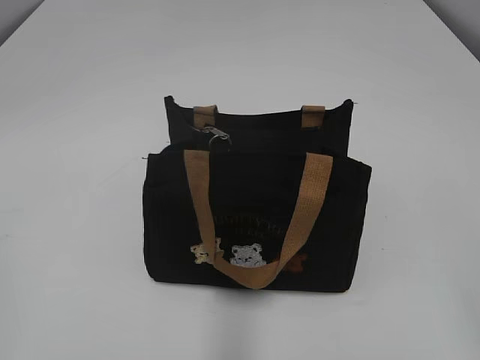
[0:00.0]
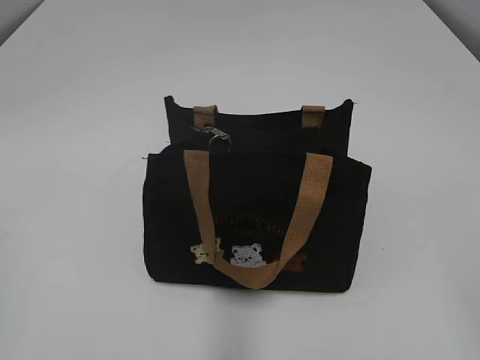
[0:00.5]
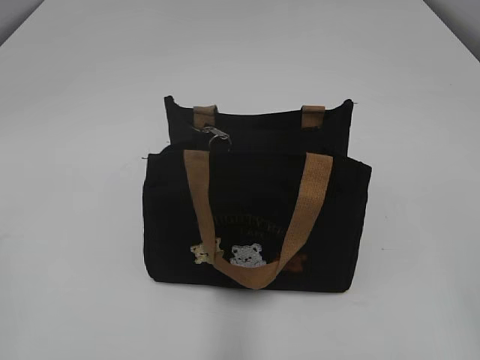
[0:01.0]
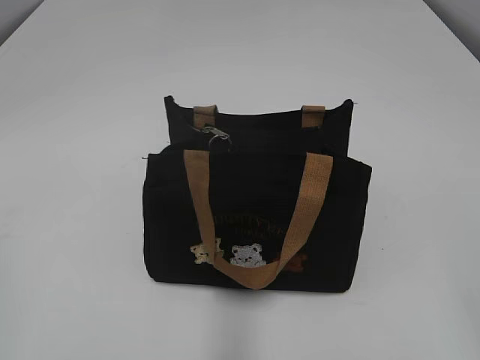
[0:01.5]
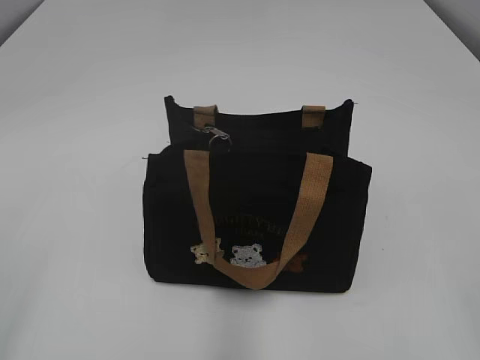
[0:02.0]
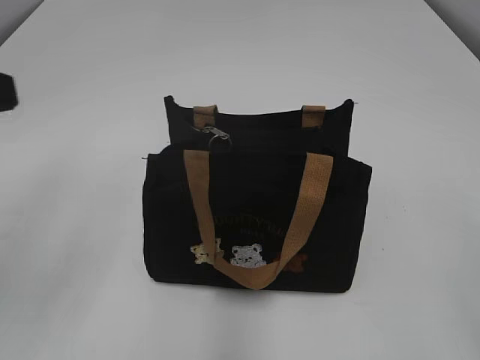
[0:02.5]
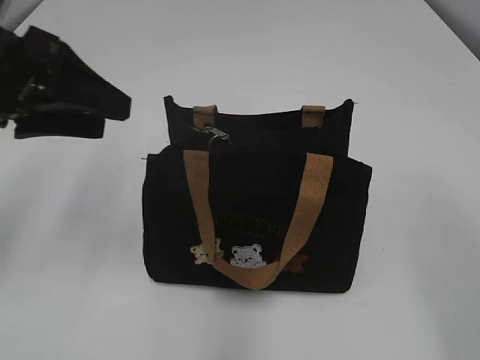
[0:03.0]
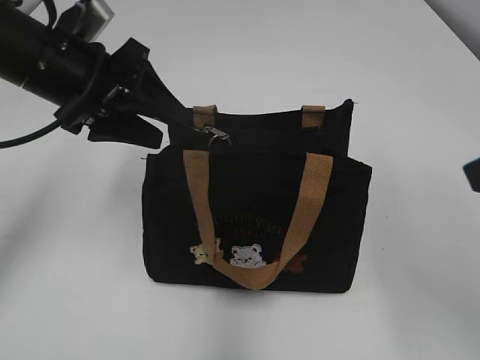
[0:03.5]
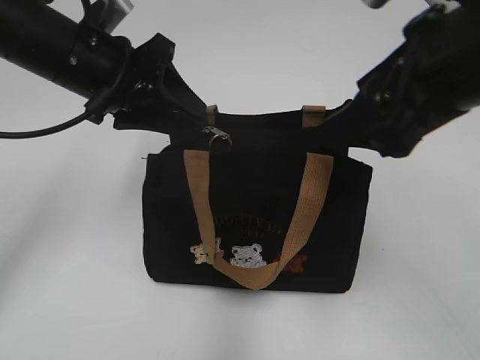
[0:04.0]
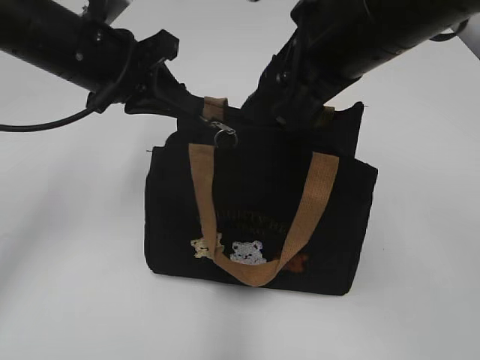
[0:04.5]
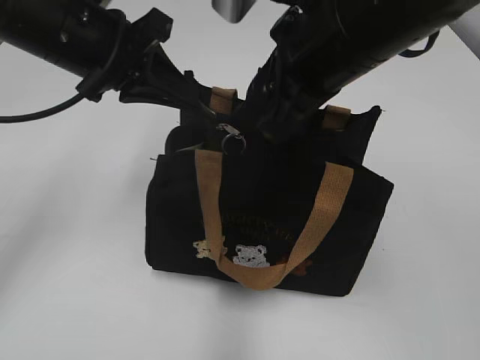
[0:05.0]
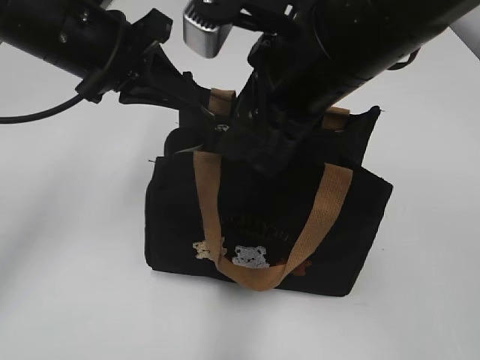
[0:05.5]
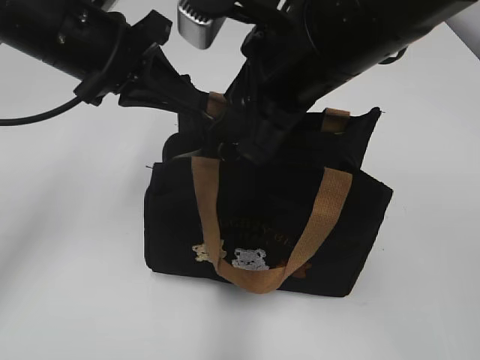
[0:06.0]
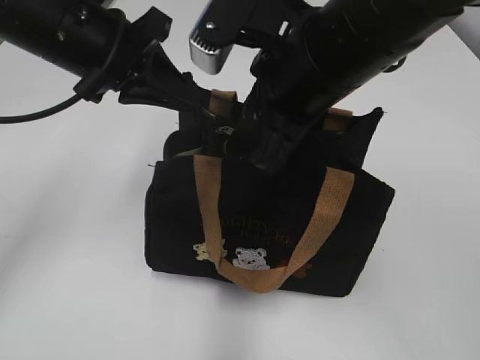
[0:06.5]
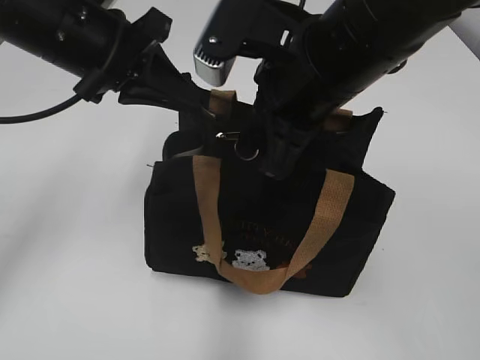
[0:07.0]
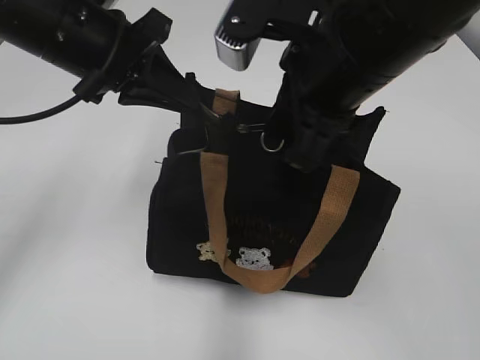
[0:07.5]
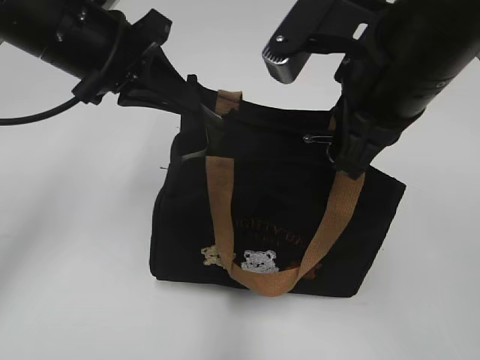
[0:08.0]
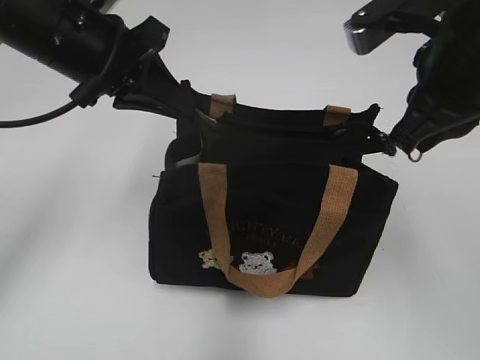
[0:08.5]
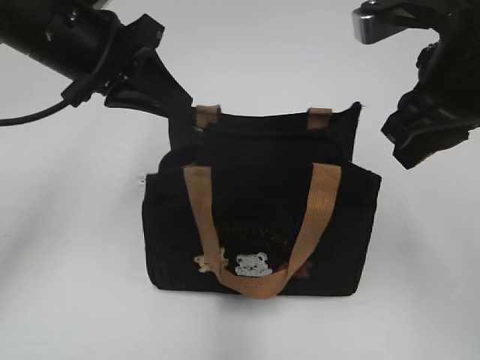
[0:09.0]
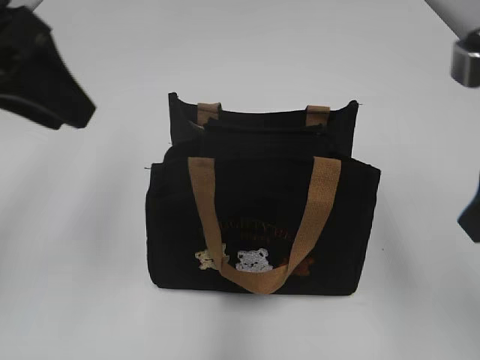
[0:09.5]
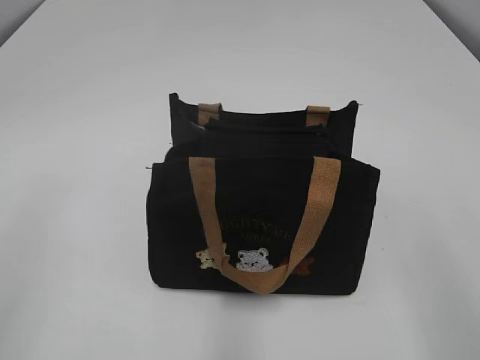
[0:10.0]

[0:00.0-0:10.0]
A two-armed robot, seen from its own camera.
Step, 0:00.0 to 0:08.5: Zip up the bag with your right hand.
0:02.0 to 0:04.0: The left gripper goes some 35 cm forward and to the right; the right gripper is displaced forward and to the left by roughly 25 cm.
0:04.0 to 0:06.0: The left gripper closes; the right gripper goes roughly 10 cm to the left.
0:06.0 to 0:08.0: The right gripper heads to the right, covering about 5 cm, and closes up.
0:08.0 to 0:10.0: The left gripper is displaced backward and to the left by roughly 25 cm, and opens, while the right gripper shifts about 20 cm backward and to the right, and opens up.

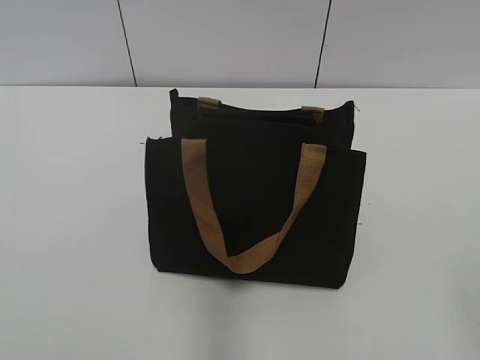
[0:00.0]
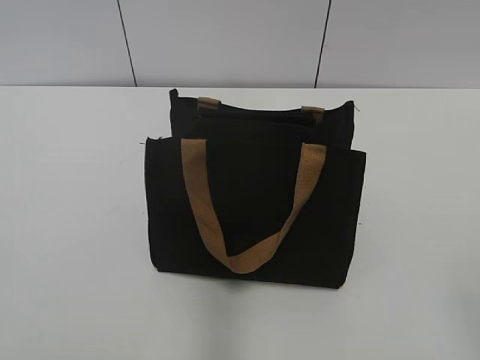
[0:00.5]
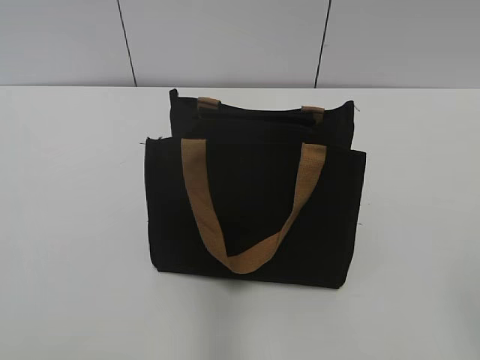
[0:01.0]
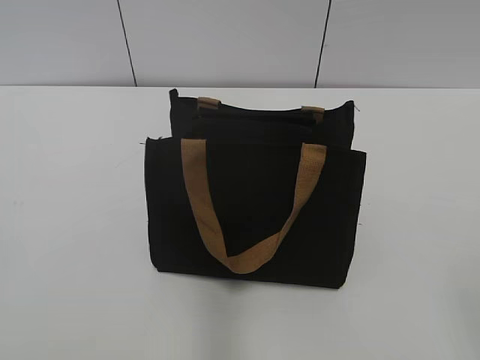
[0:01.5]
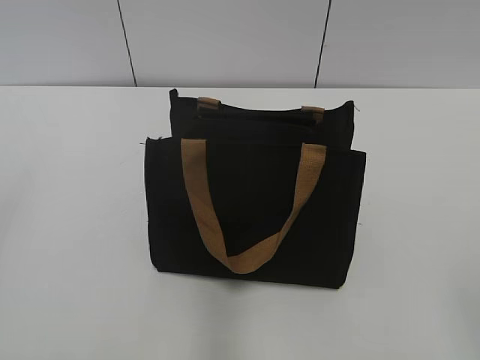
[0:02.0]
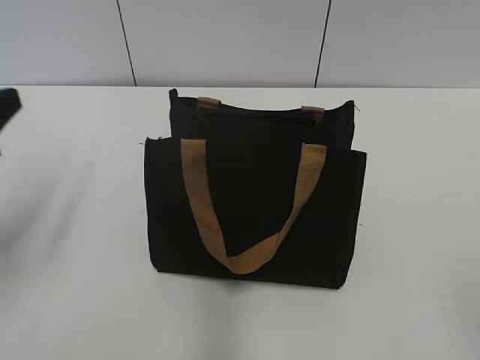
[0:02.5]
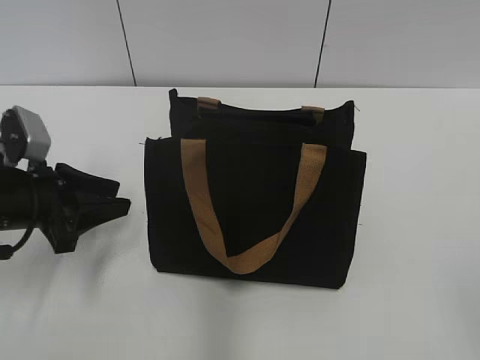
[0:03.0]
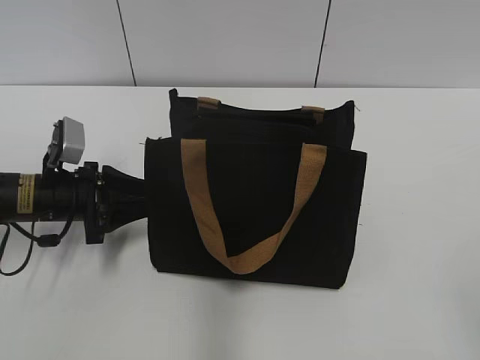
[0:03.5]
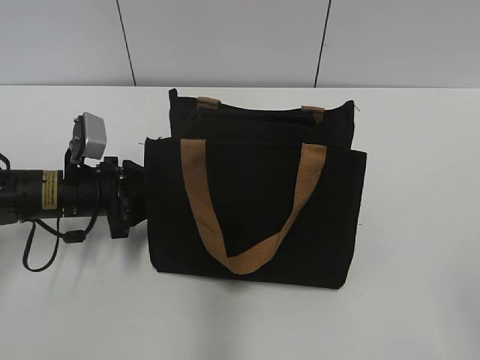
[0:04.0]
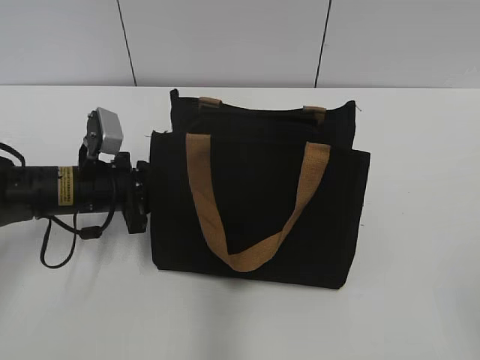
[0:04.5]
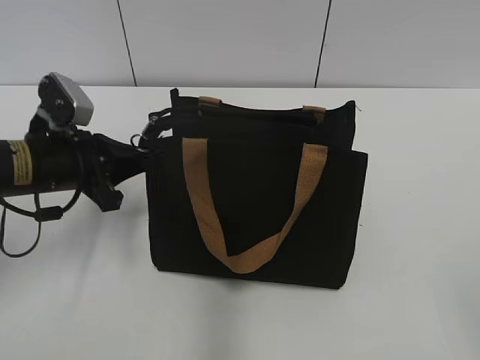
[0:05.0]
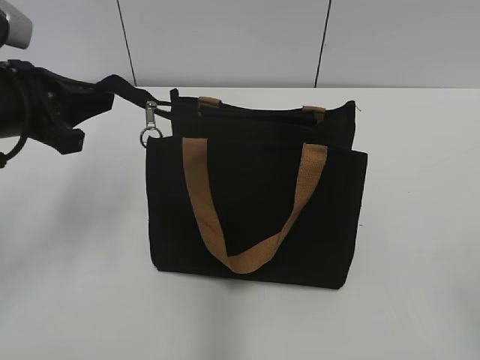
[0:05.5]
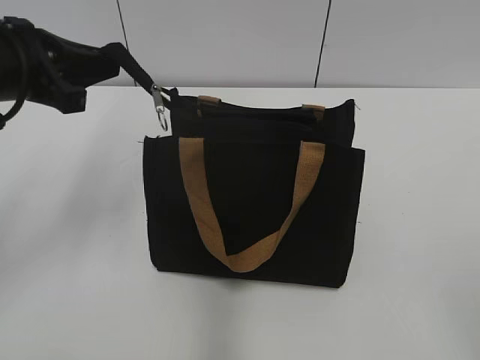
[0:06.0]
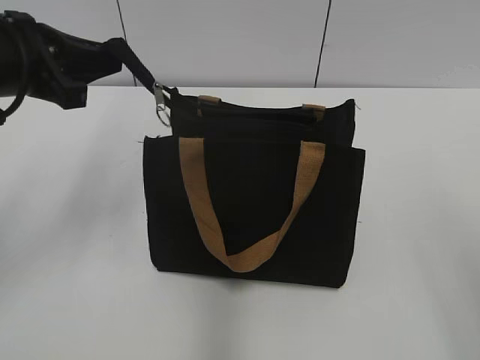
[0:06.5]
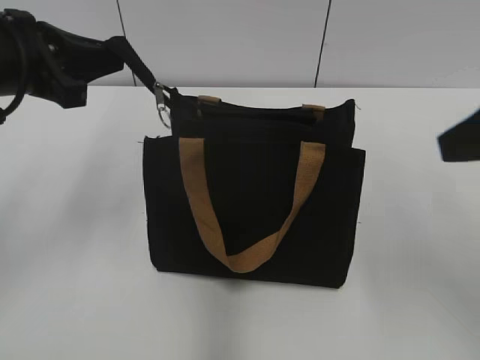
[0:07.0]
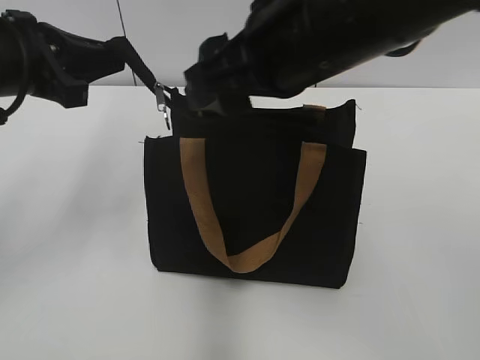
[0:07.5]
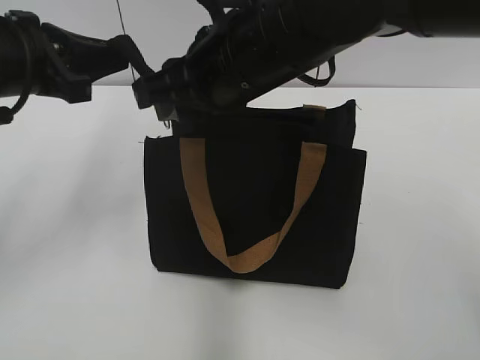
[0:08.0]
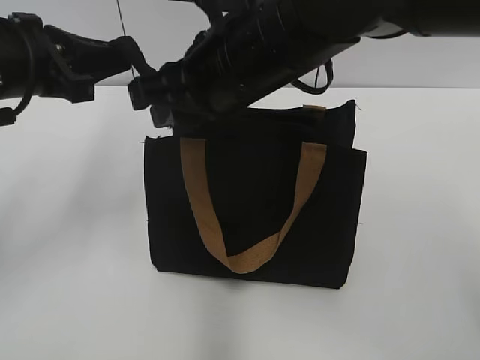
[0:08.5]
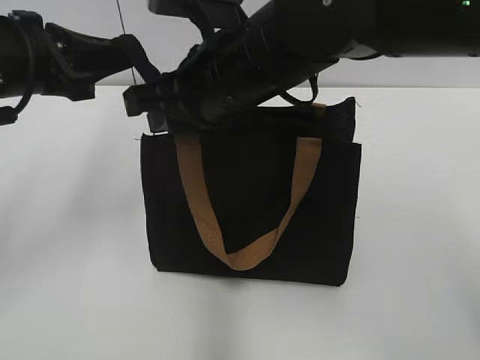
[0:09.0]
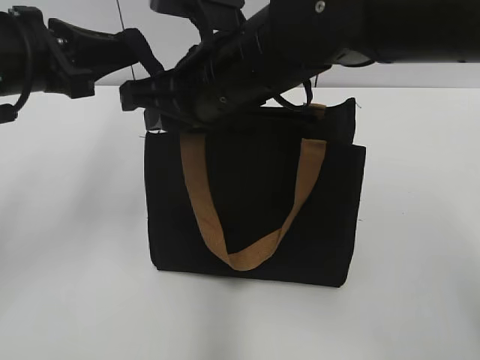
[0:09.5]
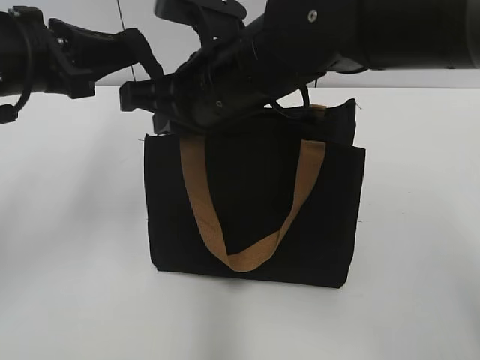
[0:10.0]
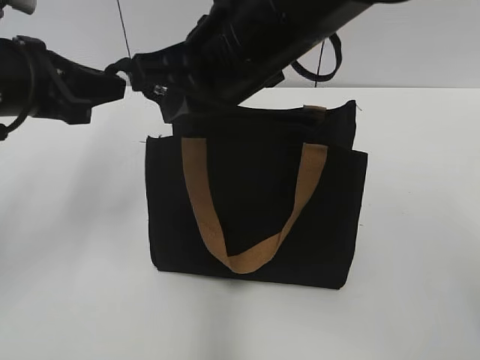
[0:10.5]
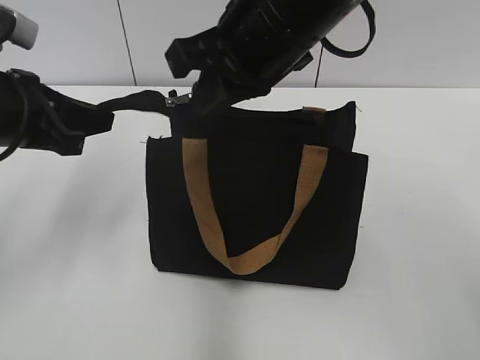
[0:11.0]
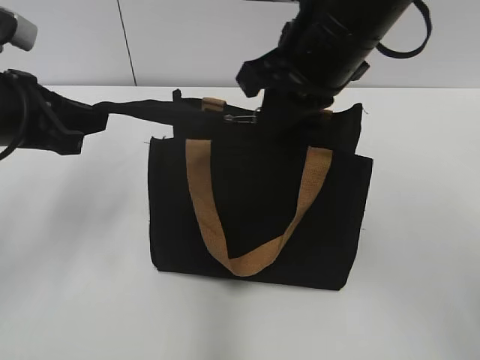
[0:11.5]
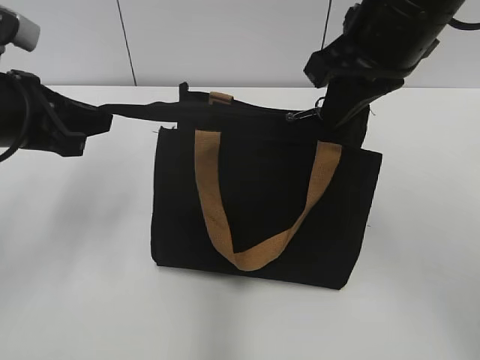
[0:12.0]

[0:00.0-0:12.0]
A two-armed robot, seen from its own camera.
0:02.0 to 0:04.0: The left gripper travels downward, forward and to the right by roughly 35 cm.
0:04.0 to 0:06.0: The left gripper travels upward by roughly 20 cm, and closes its fingers.
0:06.0 to 0:08.0: The right gripper is displaced forward and to the left by approximately 40 cm, and closes its fingers.
0:08.0 to 0:10.0: The right gripper closes up.
0:10.0 to 0:12.0: The right gripper travels to the right and upward by approximately 15 cm.

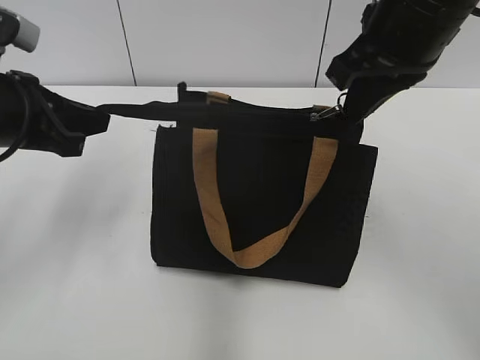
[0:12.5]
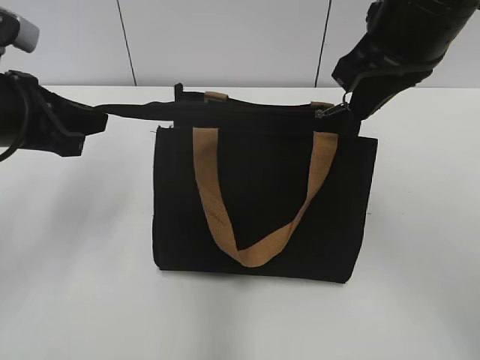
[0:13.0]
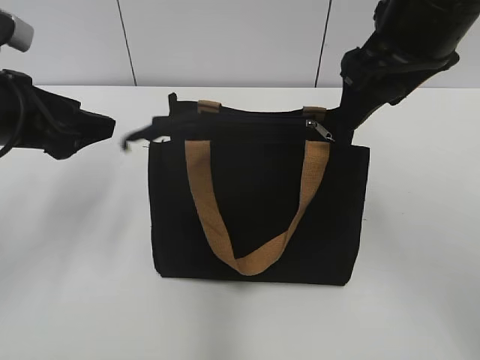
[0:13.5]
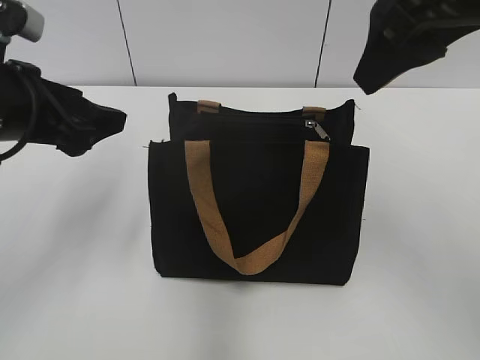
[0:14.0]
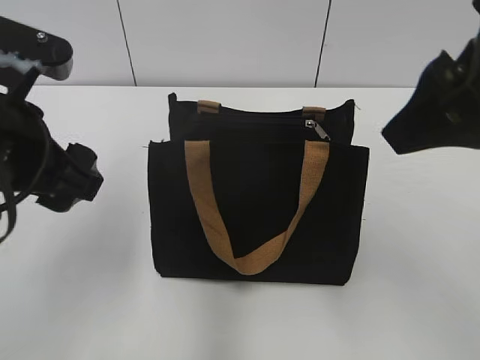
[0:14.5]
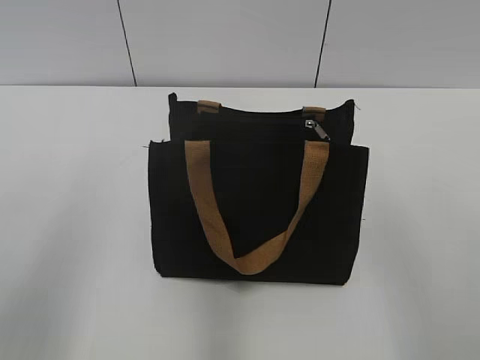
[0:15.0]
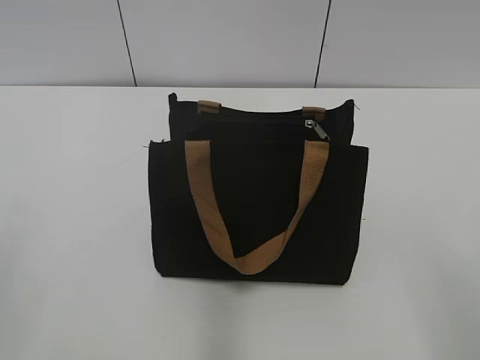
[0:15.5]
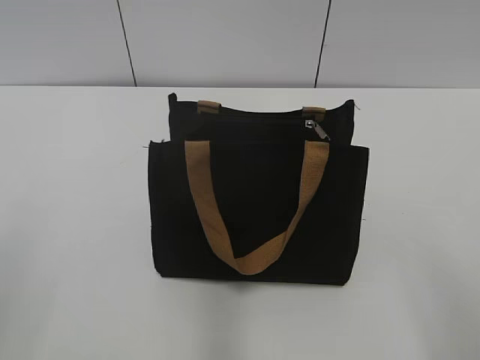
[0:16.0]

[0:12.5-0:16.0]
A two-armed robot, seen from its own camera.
0:12.5 to 0:14.5: The right gripper heads backward, covering about 10 cm, and opens; the left gripper goes some 10 cm backward and to the right, and opens up.
0:14.5 to 0:16.0: The right gripper is displaced backward, downward and to the right by some 20 cm. Meanwhile the left gripper moves backward and to the left, about 20 cm.
